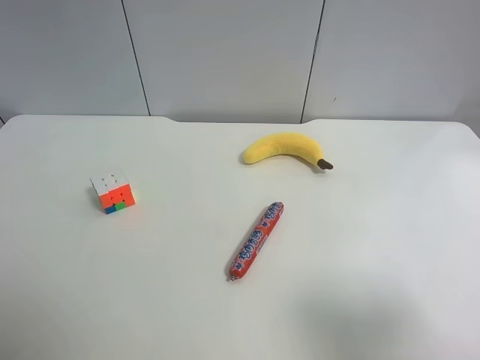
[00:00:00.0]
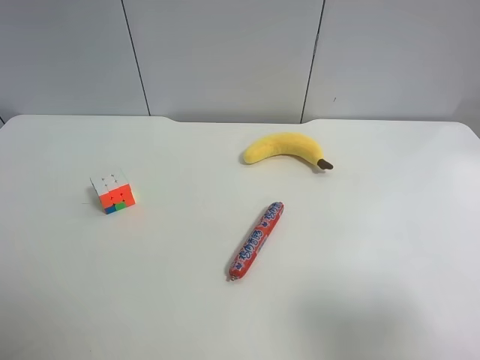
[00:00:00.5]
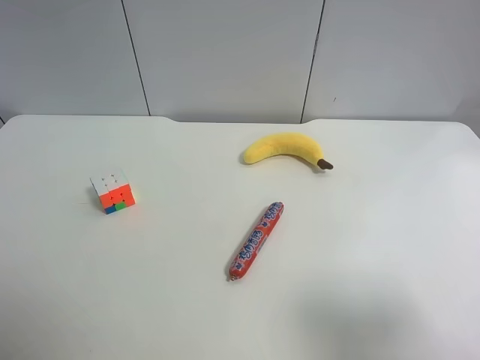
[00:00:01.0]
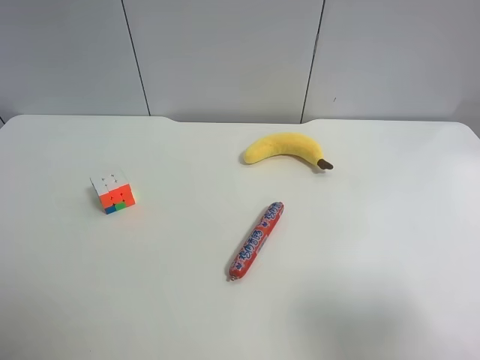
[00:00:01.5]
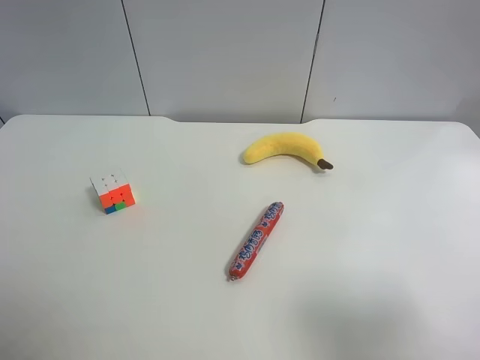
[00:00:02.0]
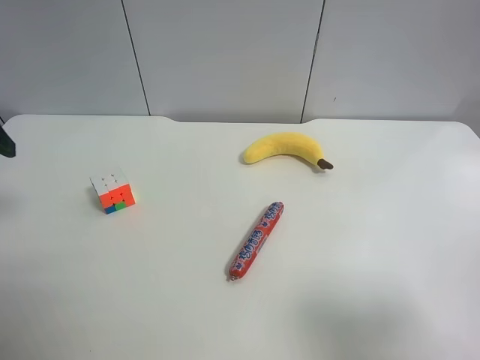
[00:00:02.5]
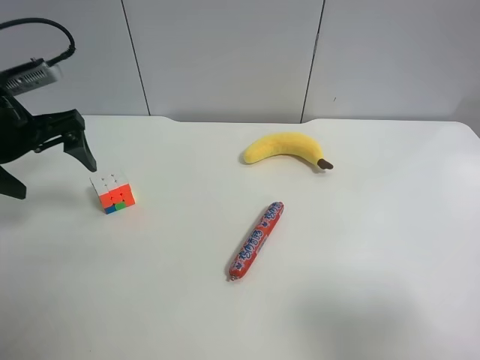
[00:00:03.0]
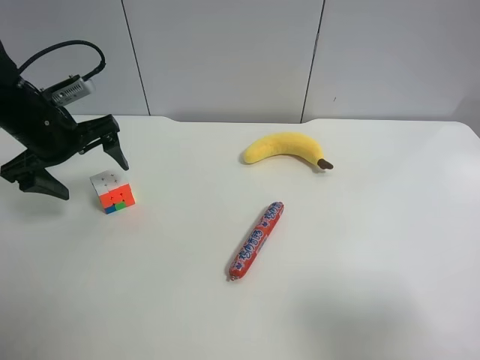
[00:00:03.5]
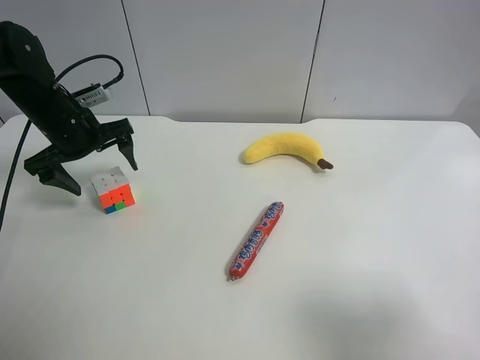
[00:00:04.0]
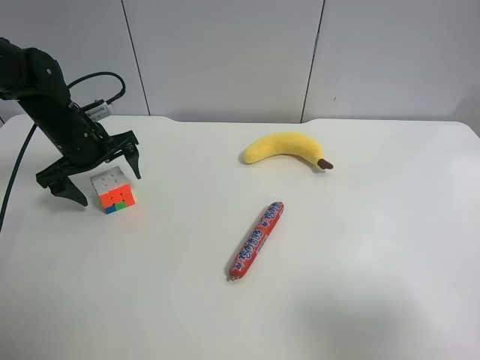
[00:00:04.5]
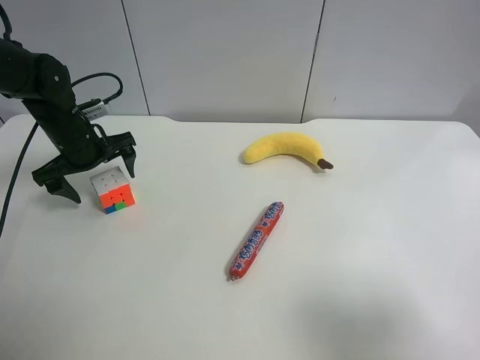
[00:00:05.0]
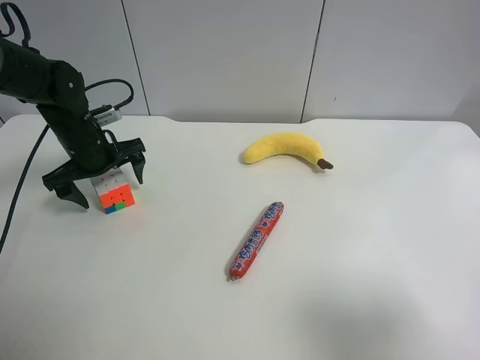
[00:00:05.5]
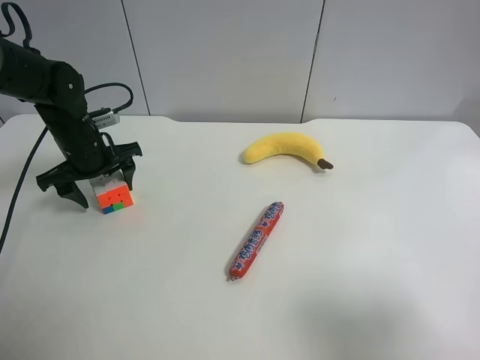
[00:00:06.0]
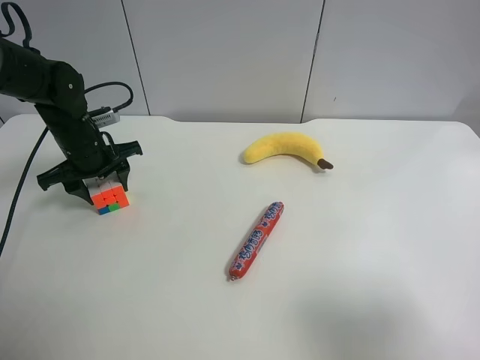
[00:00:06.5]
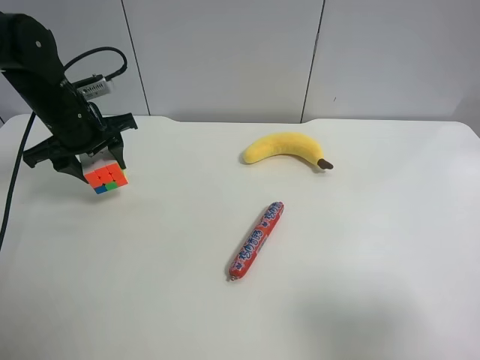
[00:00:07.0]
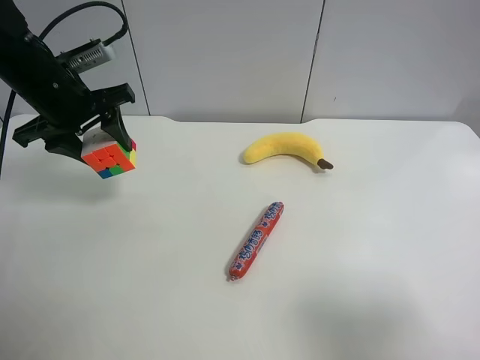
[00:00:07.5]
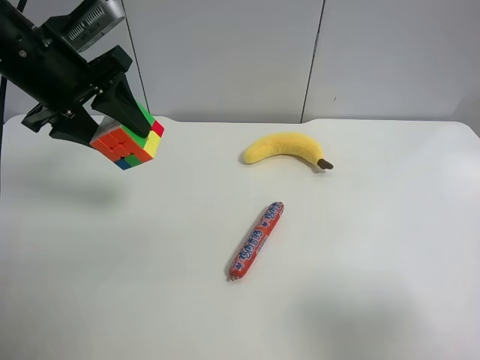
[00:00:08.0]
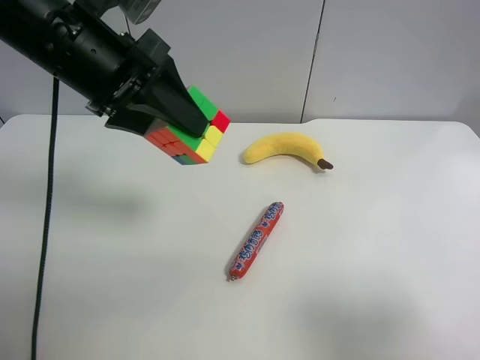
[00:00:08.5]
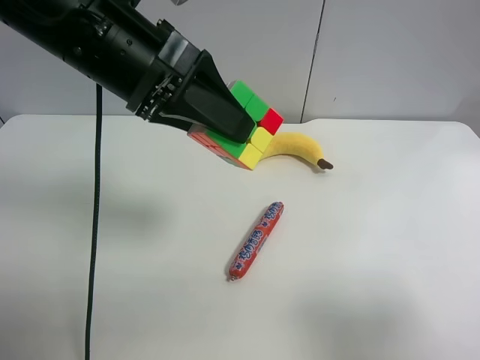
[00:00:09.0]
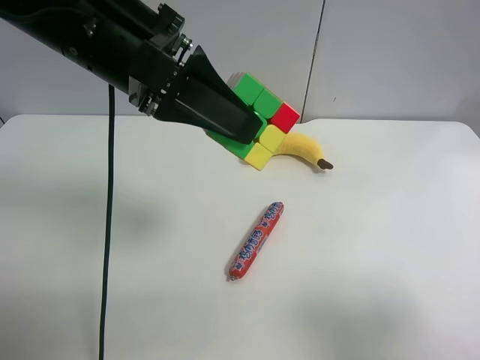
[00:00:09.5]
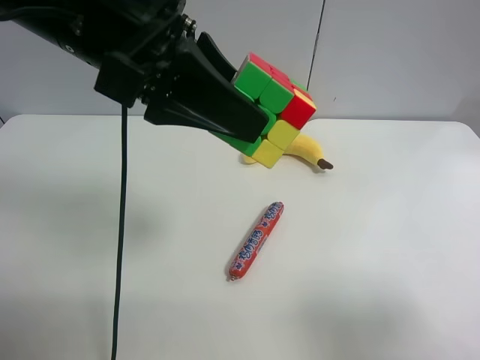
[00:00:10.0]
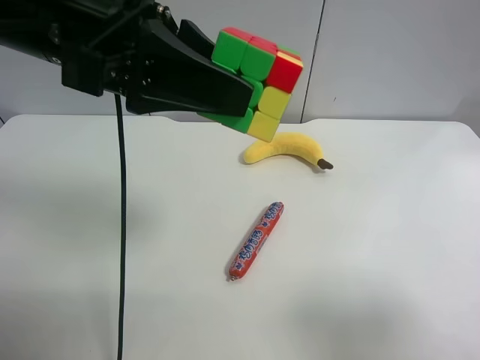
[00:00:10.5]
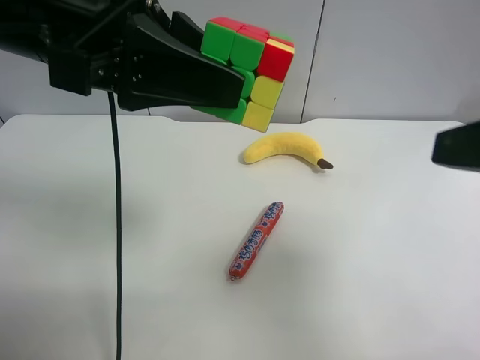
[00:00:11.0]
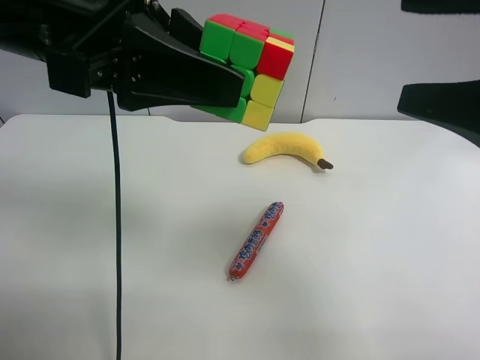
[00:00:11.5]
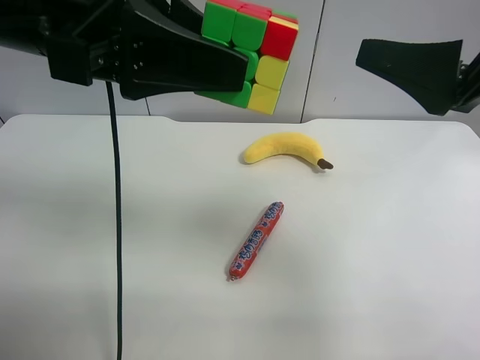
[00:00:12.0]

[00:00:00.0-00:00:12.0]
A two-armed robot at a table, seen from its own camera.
Task of the whole recording: use the left gripper to pick up the item and transfer it from the left gripper to the right gripper.
Step, 00:00:00.0 to 00:00:06.0: Grasp the Rubik's Cube with the left gripper.
00:00:02.0 to 00:00:04.0: The left gripper goes approximately 30 cm forward and downward.
00:00:04.0 to 00:00:06.0: The left gripper closes its fingers.
00:00:06.0 to 00:00:08.0: The left gripper shifts roughly 20 cm upward and backward.
00:00:08.0 to 00:00:10.0: The left gripper heads to the right and backward, covering some 15 cm.
00:00:10.0 to 00:00:12.0: The right gripper goes approximately 20 cm forward, upward and to the left.

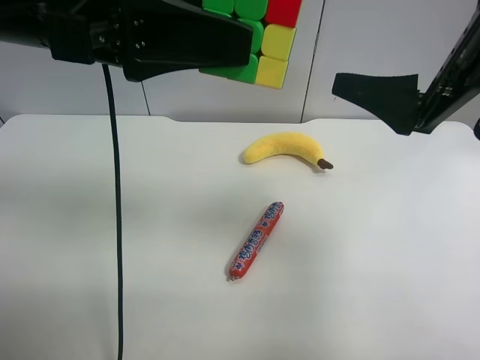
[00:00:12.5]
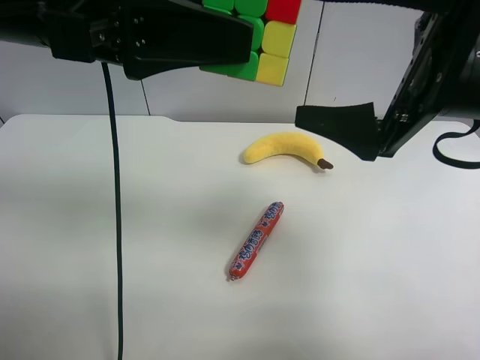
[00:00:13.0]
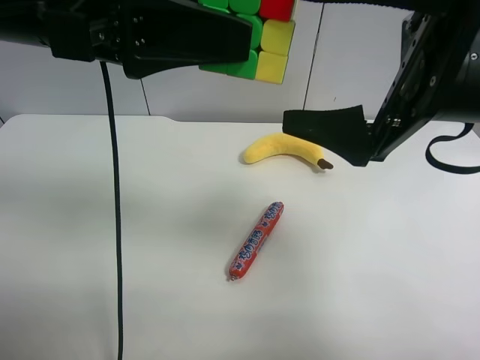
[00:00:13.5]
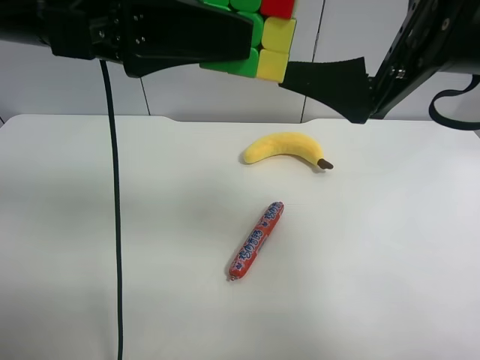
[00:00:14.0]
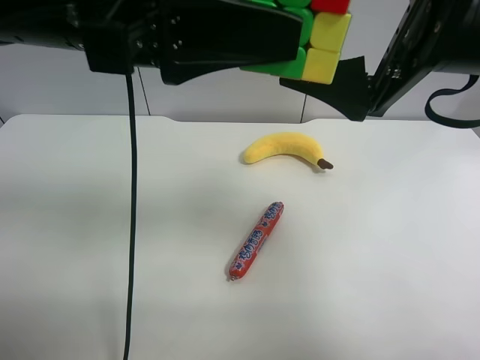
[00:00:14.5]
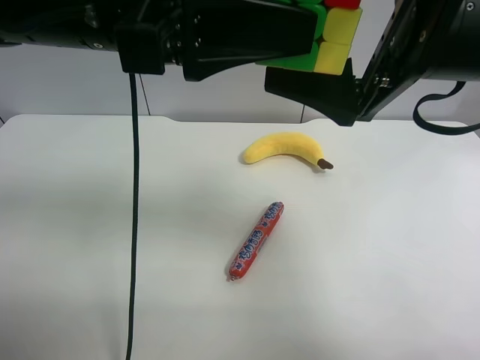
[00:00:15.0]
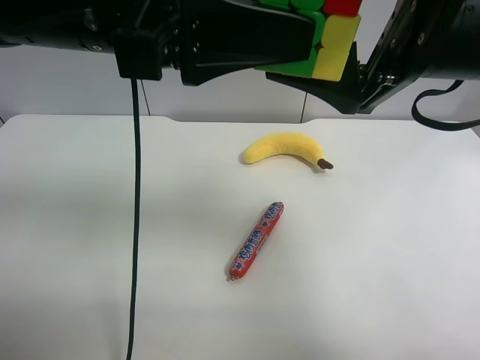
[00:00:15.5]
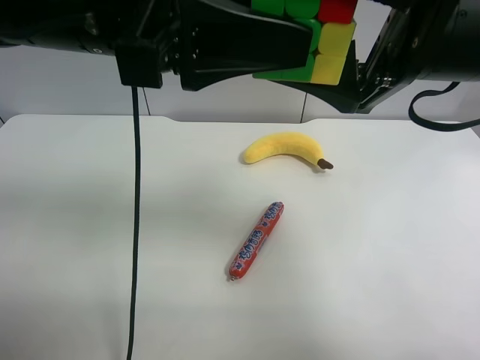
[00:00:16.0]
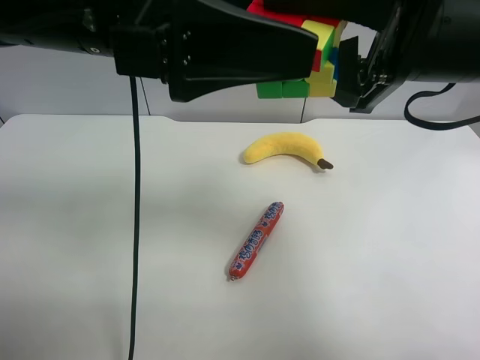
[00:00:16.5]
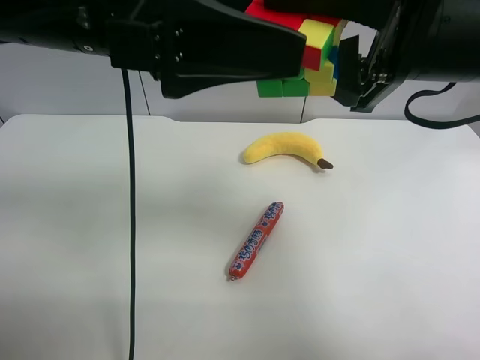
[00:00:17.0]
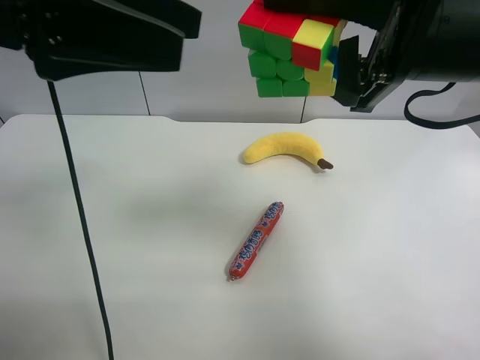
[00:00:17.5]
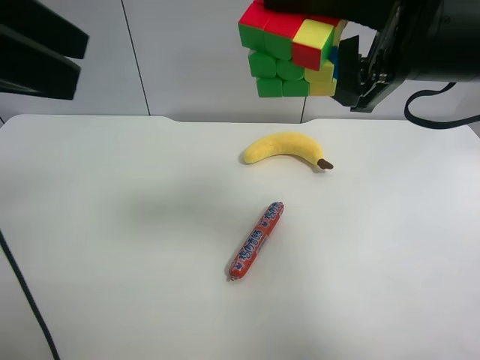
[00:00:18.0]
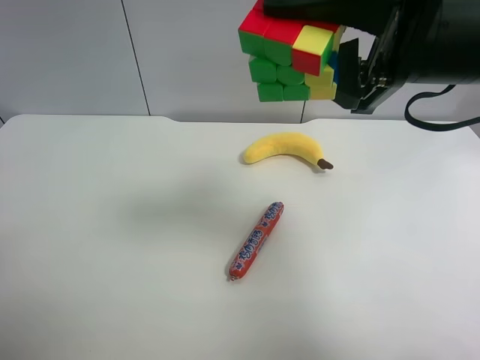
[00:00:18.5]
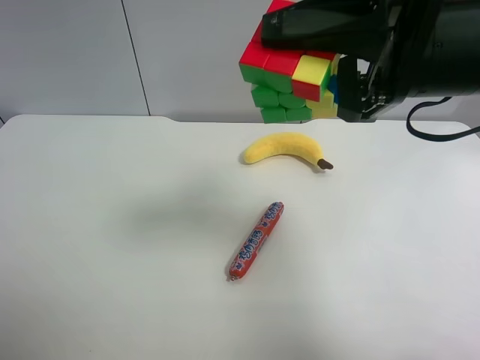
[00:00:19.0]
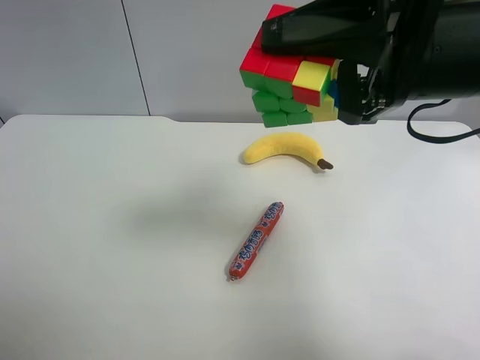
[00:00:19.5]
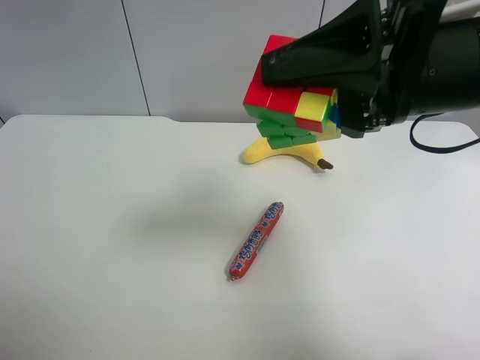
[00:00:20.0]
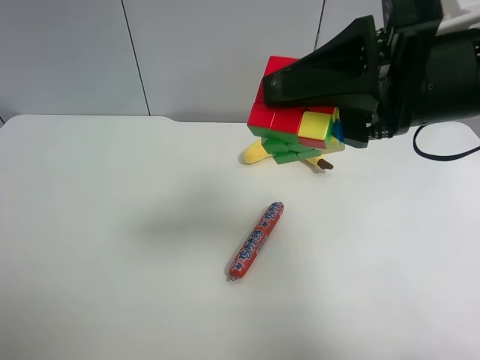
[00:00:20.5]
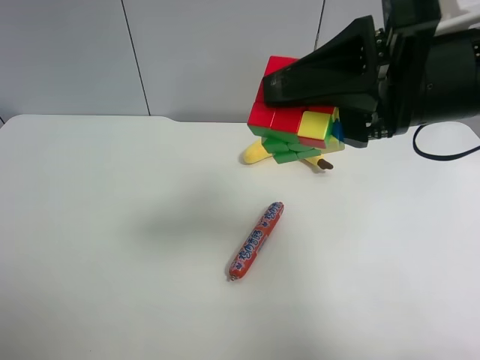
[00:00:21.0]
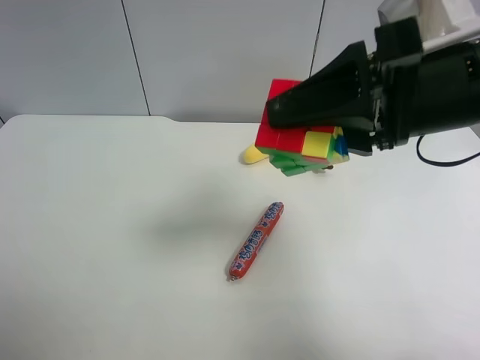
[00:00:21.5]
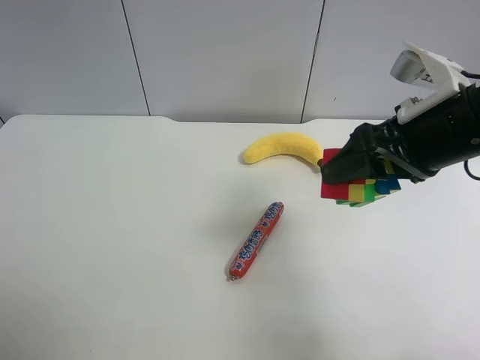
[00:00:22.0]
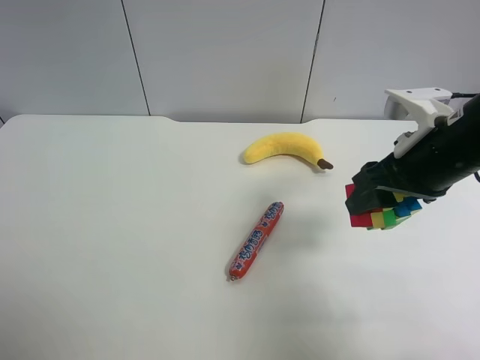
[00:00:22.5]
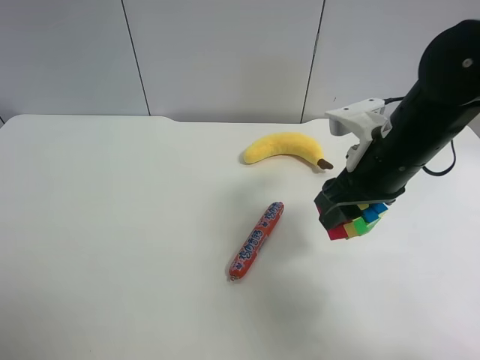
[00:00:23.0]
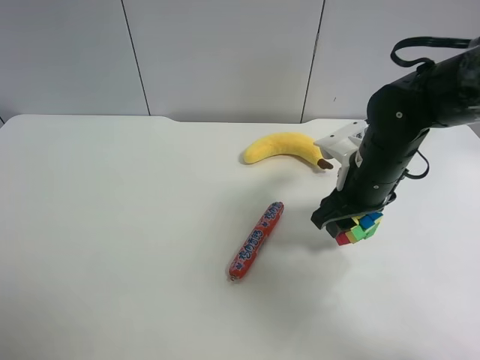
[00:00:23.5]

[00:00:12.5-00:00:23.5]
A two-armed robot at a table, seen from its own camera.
Task of the whole recording: use the left gripper to pick up the item and transfer it from the left gripper to the right gripper.
Step, 00:00:12.5 to 00:00:17.5: Pass the Rubik's Cube to the right gripper.
00:00:12.5 to 00:00:14.5: The grippers stay close to where they were, moving slightly.
00:00:14.5 to 00:00:16.0: The right gripper closes.
00:00:16.0 to 00:00:18.0: The left gripper shifts roughly 15 cm to the left, and opens.
00:00:18.0 to 00:00:20.0: The left gripper travels backward and downward by about 20 cm.
00:00:20.0 to 00:00:21.5: The grippers move only a little.
00:00:21.5 to 00:00:23.5: The right gripper moves downward and forward, about 15 cm.

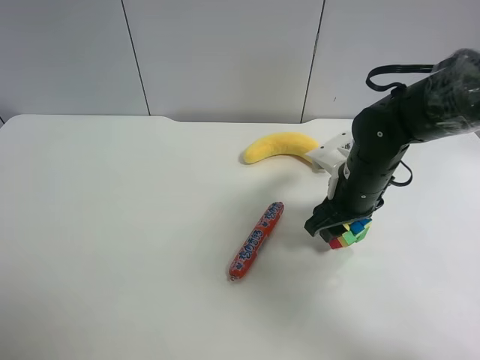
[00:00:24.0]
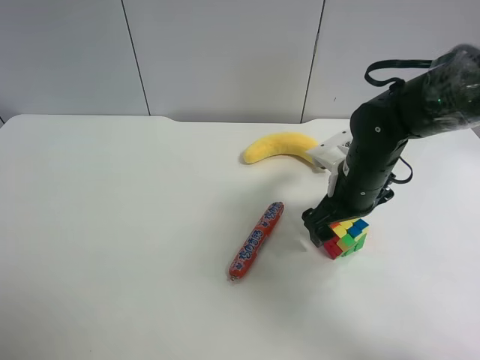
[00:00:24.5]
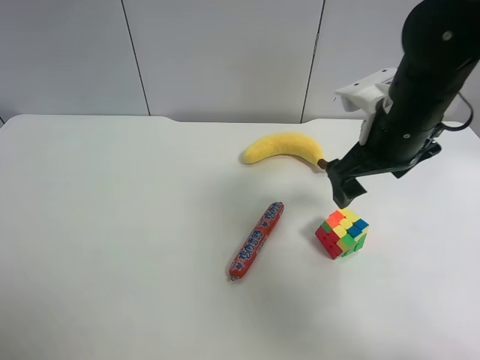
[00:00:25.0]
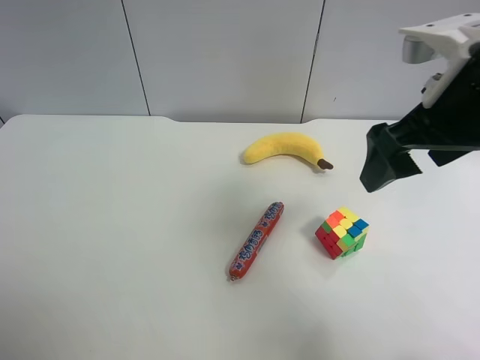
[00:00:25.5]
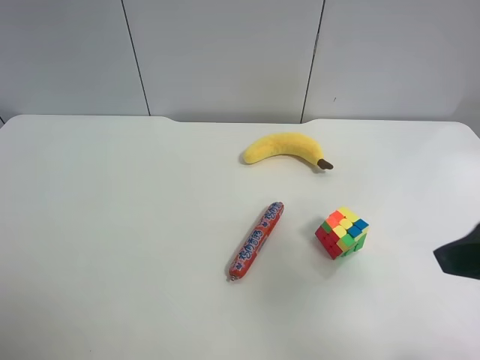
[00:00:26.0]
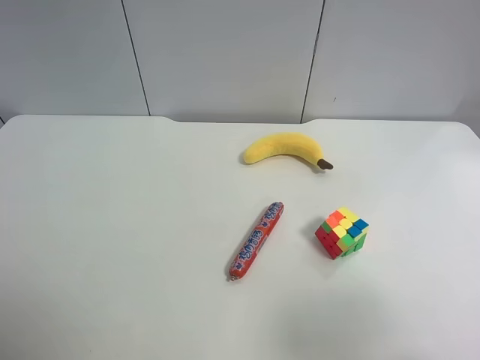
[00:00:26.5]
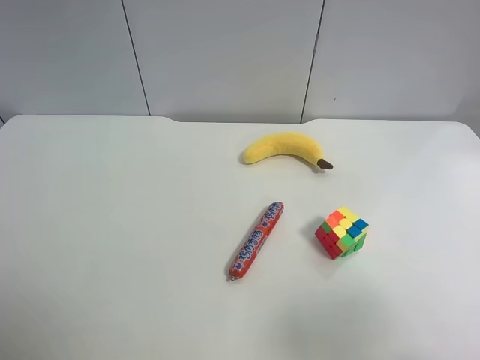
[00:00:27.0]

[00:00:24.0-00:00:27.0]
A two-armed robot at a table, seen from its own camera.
Task of the whole recording: use the left gripper to pick up the item and transfer it from the left gripper to the right gripper.
00:00:24.0 to 00:00:25.5: The right gripper heads upward and backward, covering approximately 20 cm, and opens.
00:00:25.5 to 00:00:27.0: The right gripper is displaced backward and to the right by approximately 20 cm.
